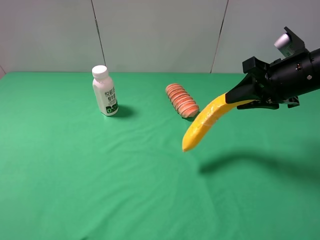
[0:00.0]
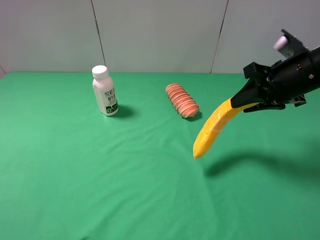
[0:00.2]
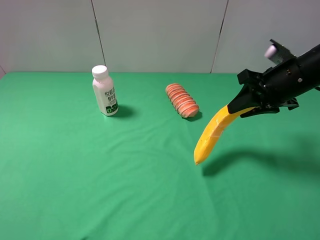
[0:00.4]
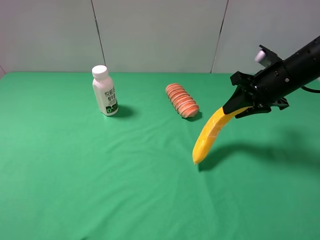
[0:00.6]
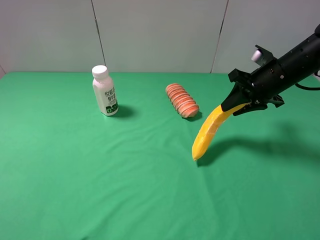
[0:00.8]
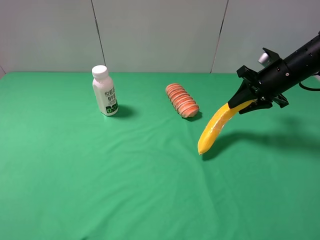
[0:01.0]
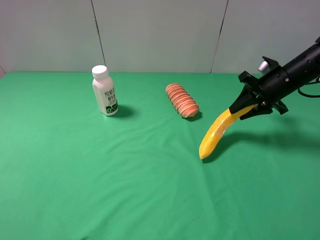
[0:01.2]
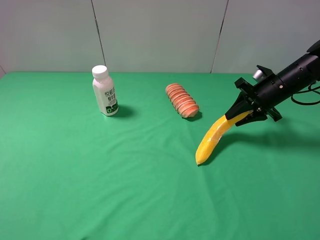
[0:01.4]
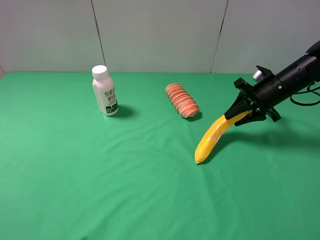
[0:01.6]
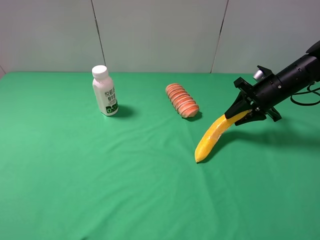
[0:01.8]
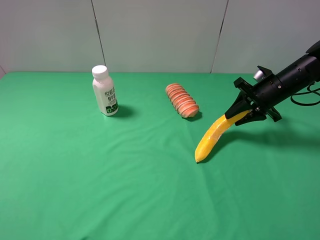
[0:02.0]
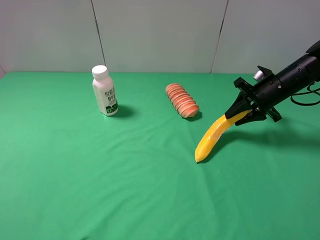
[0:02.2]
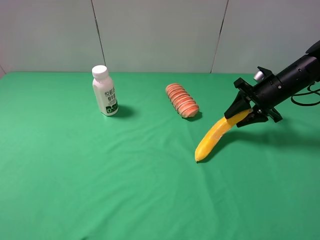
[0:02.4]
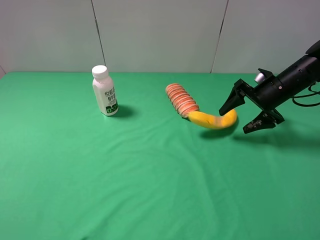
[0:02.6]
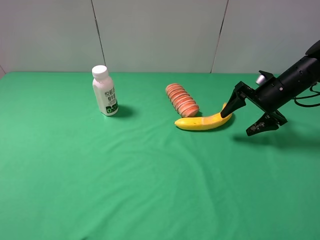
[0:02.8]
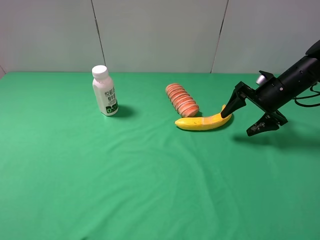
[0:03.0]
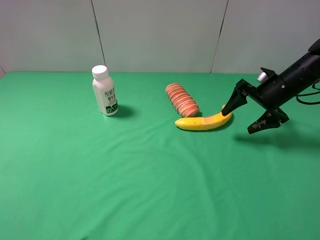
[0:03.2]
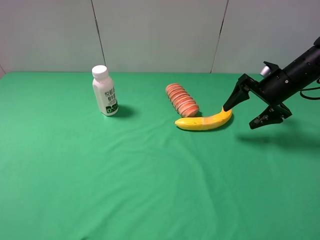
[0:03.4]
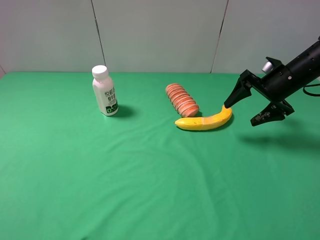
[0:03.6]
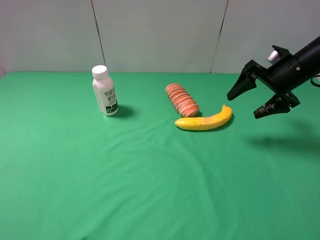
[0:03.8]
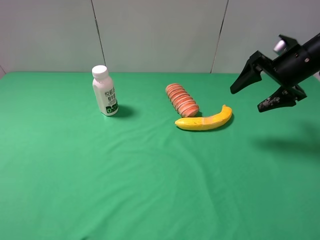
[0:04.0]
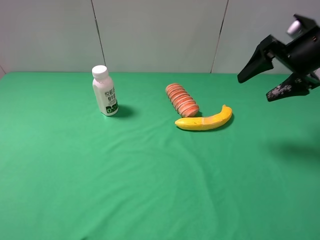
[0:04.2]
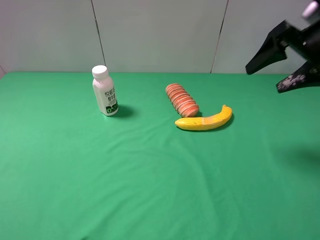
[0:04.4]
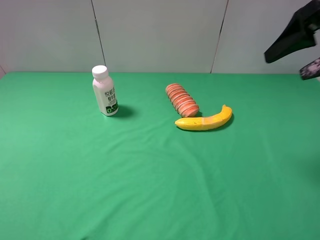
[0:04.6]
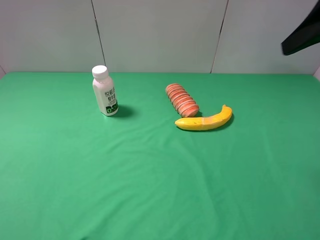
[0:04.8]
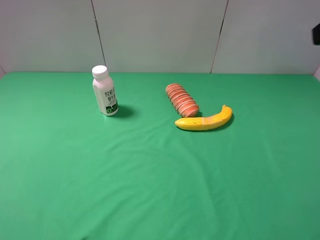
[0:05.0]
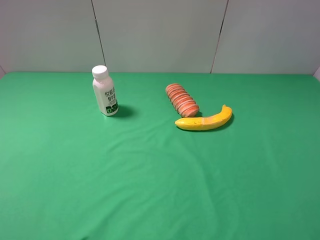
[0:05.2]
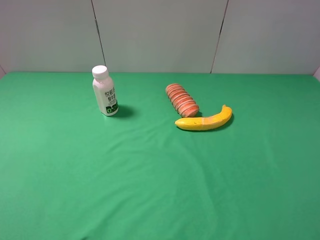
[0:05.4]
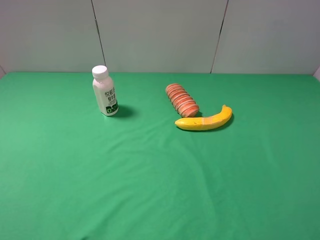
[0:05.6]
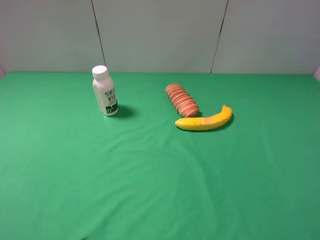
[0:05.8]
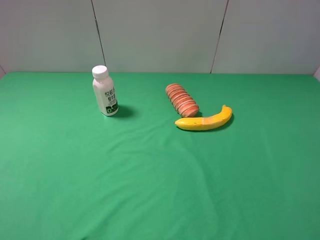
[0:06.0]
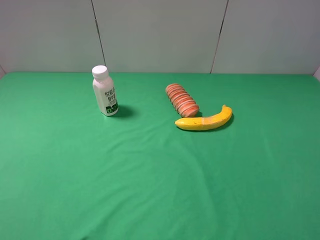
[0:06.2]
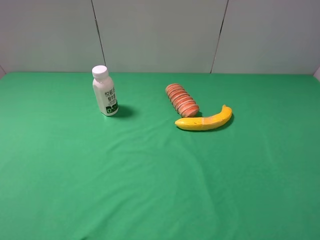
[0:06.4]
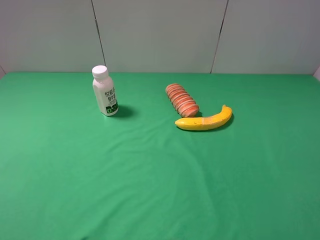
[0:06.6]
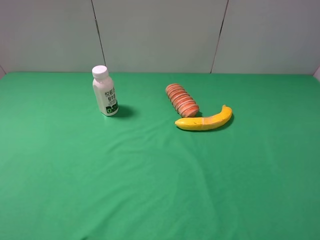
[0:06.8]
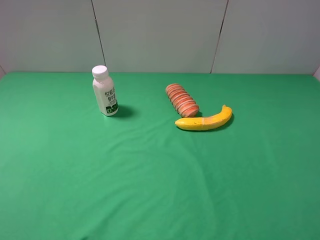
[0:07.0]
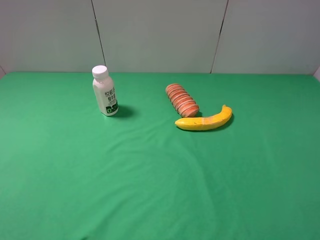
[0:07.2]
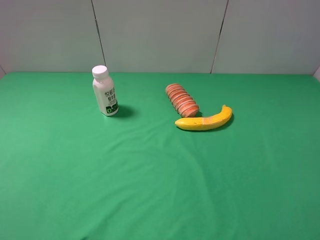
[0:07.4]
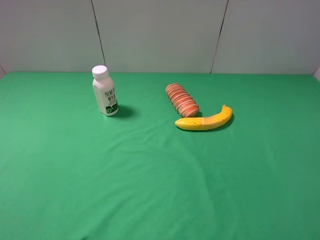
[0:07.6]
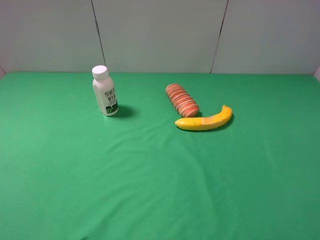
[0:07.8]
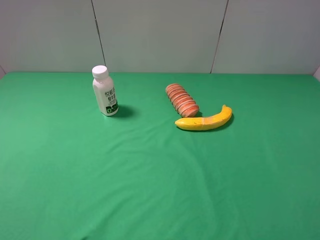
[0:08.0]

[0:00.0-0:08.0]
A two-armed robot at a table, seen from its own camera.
Task of the whole recording: use the left gripper to pick up the item and transfer it from the left gripper to the right gripper.
Step, 0:00.0 to 0:03.4: The right gripper places banana on the right side of the table.
0:00.0 to 0:01.6: The right gripper is displaced forward and downward by roughly 15 cm.
0:01.6 to 0:03.2: The right gripper opens its fingers.
0:03.2 to 0:04.8: The right gripper is displaced upward and backward by some 25 cm.
0:04.8 to 0:06.4: The right gripper shifts some 25 cm backward and downward.

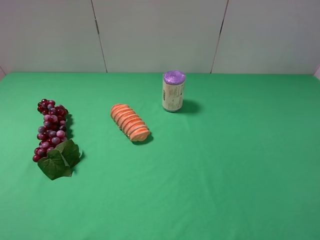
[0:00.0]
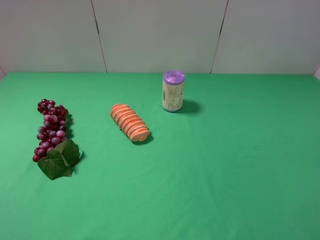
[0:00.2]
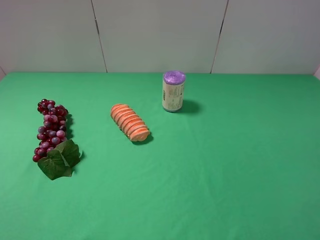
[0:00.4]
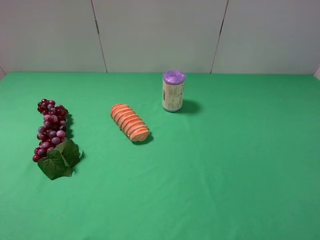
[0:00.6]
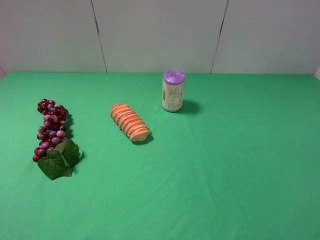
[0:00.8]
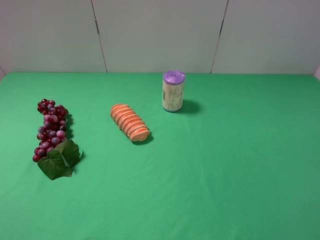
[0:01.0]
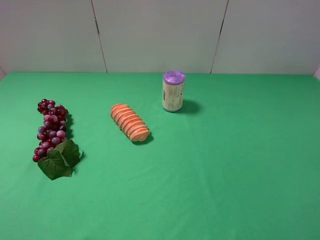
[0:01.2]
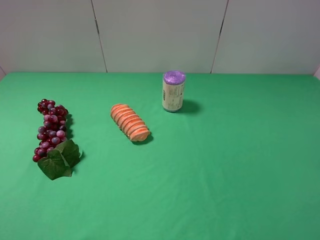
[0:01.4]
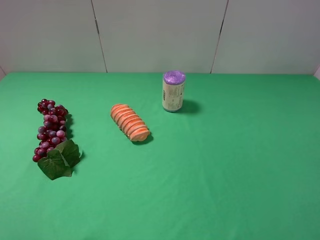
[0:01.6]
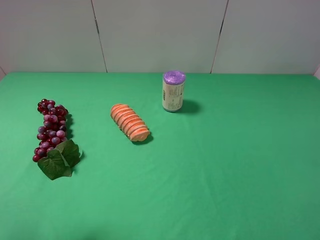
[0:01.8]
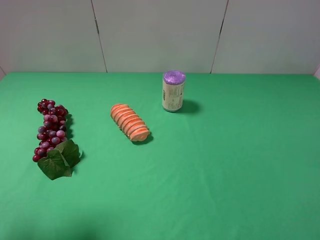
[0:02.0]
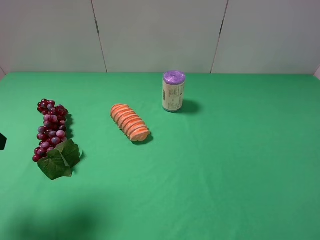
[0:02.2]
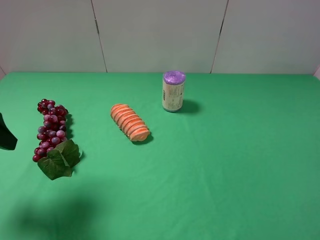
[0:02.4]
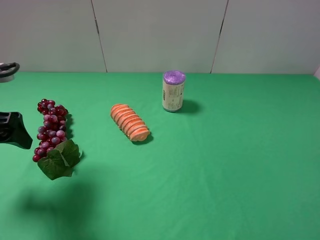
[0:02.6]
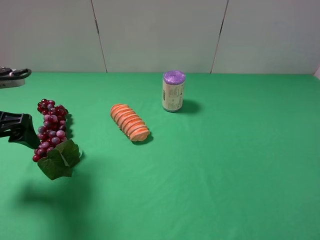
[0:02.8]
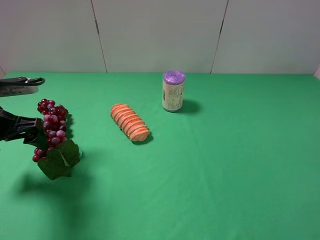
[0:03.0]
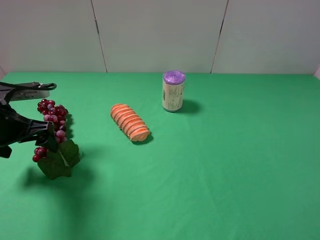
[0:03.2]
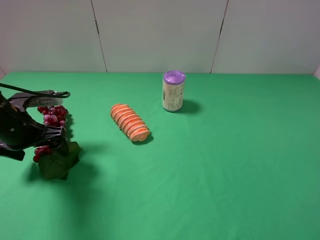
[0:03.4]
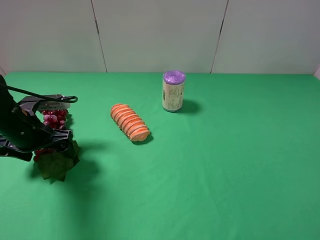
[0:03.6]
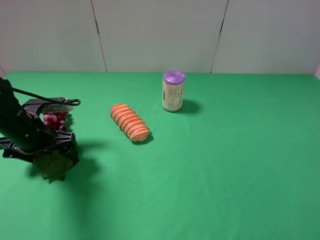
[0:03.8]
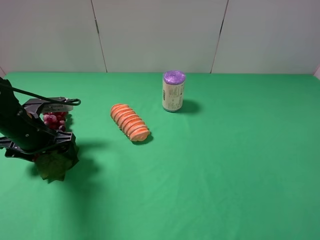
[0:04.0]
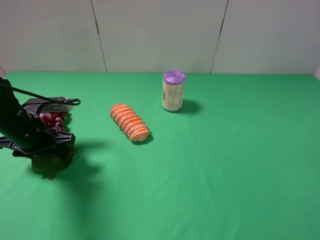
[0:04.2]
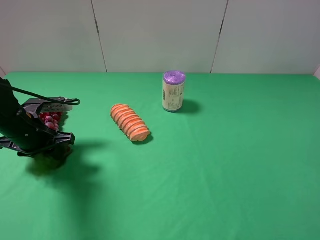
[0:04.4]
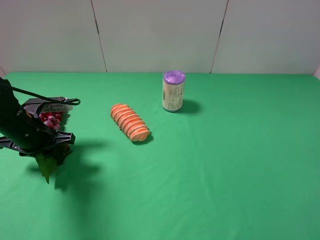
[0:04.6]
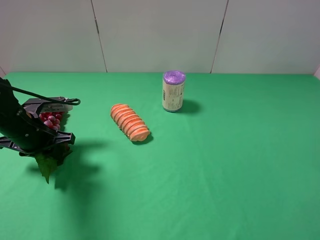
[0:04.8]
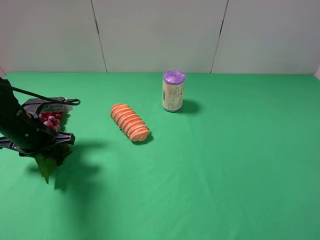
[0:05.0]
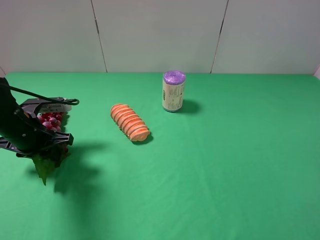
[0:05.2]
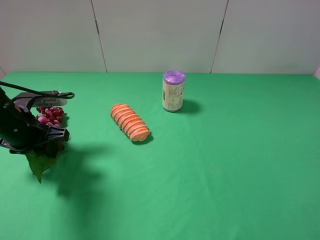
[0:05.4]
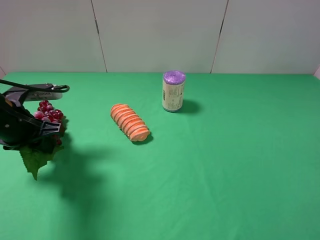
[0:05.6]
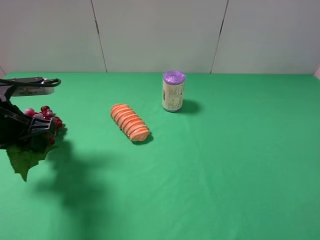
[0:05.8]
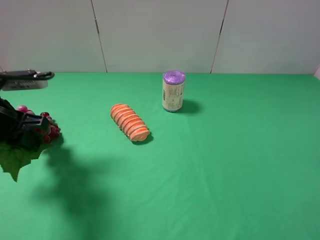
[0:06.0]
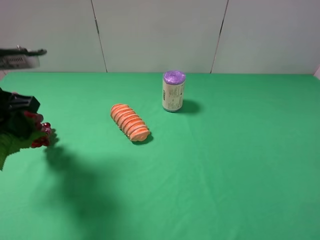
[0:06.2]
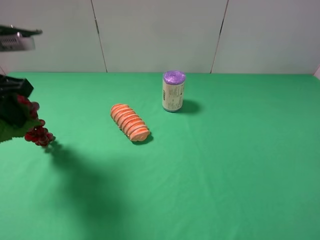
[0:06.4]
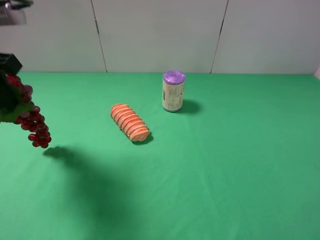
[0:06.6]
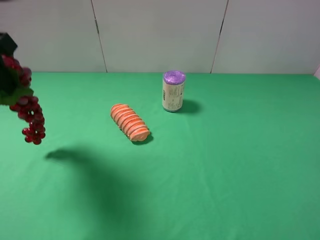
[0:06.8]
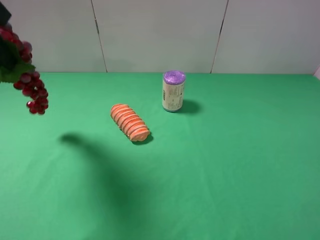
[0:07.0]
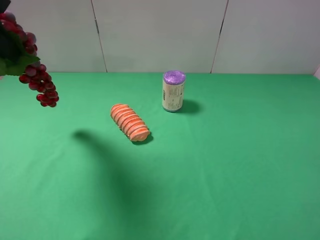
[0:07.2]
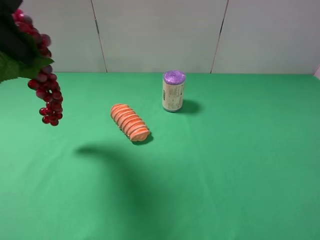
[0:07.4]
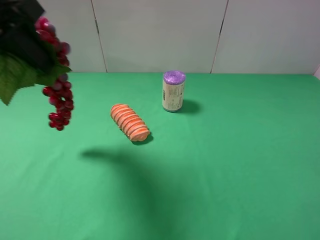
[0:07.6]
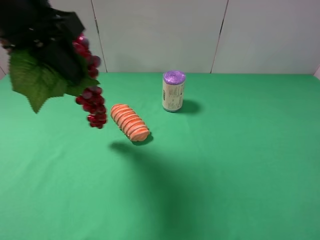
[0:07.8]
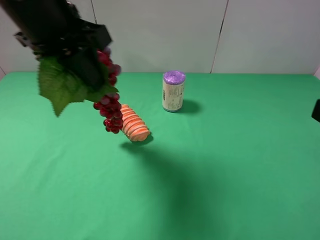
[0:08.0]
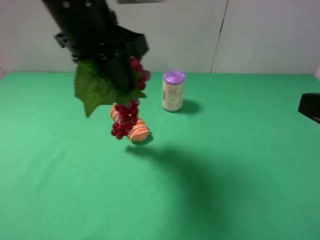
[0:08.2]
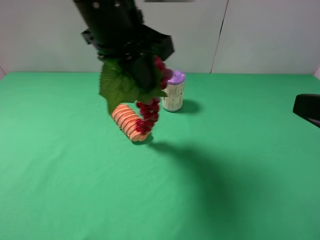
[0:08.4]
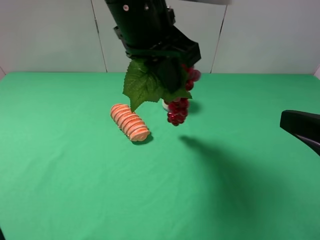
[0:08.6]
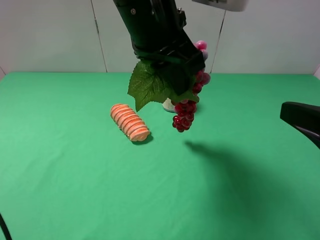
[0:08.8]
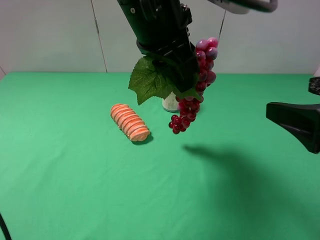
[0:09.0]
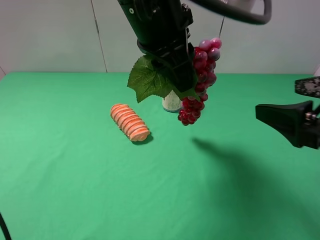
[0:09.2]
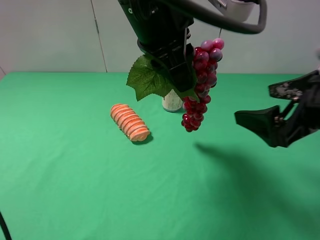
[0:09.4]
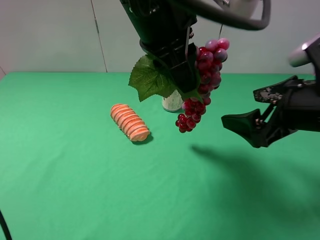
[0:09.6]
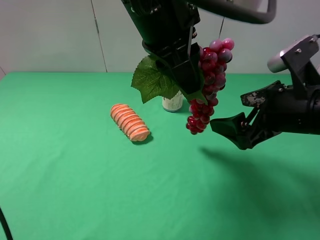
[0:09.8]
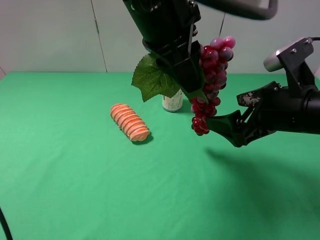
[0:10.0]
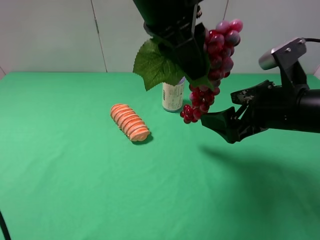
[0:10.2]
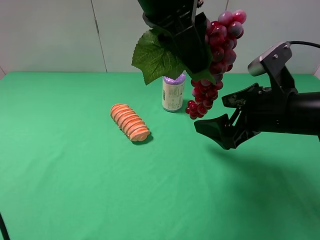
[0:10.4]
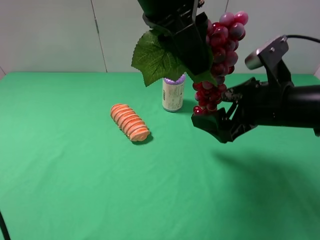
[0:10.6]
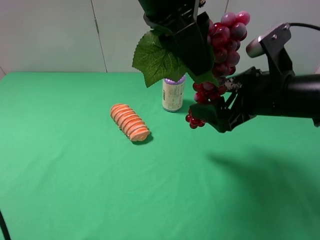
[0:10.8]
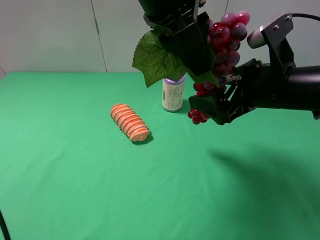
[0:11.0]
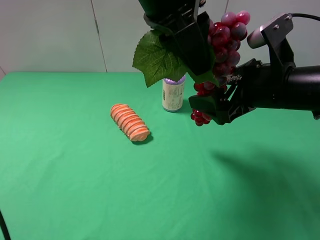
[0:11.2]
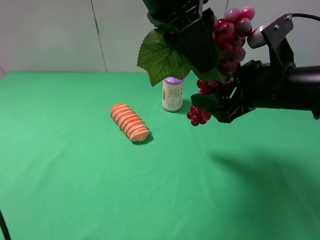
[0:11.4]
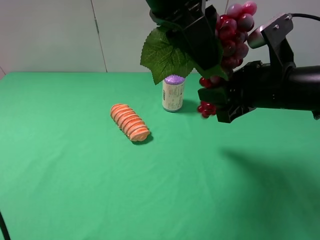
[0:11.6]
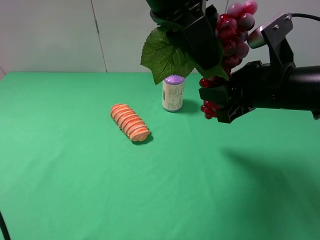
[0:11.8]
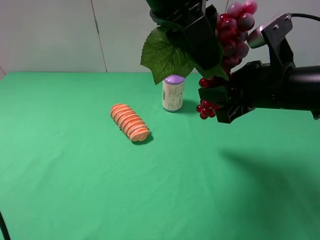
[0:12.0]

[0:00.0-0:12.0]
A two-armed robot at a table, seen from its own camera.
Task of the whole recording: use the left gripper to pick up the item and transfer it from the left gripper to the right gripper.
Step, 0:00.0 to 0:04.2: Use the left gripper to grab the grape on the left side of the table.
0:01.6 to 0:03.0: The left gripper travels forward and downward by some 20 cm.
0:03.0 to 0:04.4: The left gripper is displaced downward by about 5 cm, and closes its fingers.
0:04.4 to 0:06.0: The left gripper shifts some 10 cm upward.
0:06.0 to 0:07.6: The left gripper heads upward and to the right, covering roughly 15 cm.
0:07.6 to 0:09.0: The right gripper shifts some 10 cm forward. The left gripper is displaced to the right by roughly 20 cm.
0:09.0 to 0:10.4: The right gripper heads forward, downward and to the left, covering some 15 cm.
0:10.4 to 0:12.0: The right gripper closes its fingers.

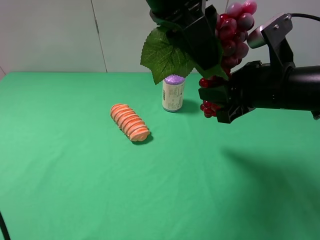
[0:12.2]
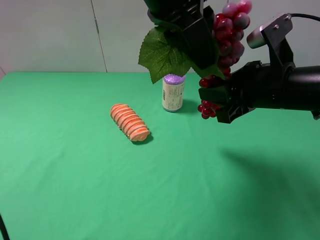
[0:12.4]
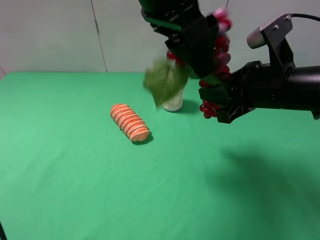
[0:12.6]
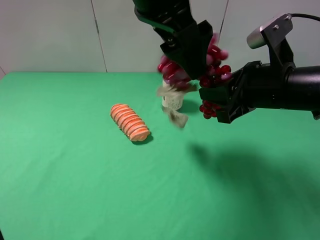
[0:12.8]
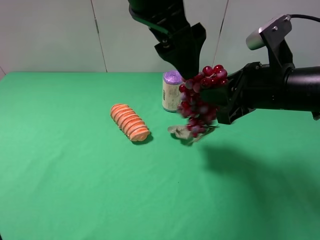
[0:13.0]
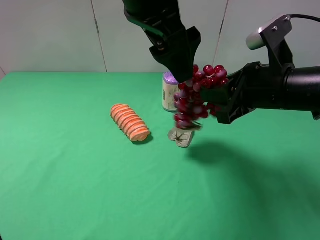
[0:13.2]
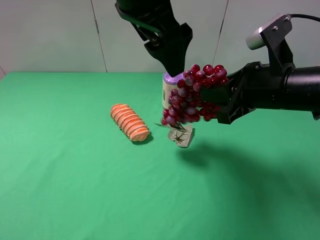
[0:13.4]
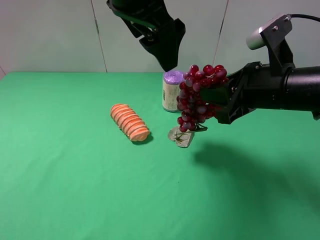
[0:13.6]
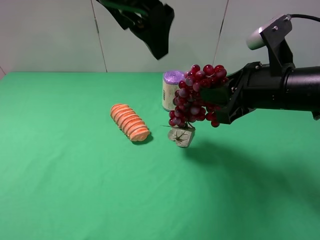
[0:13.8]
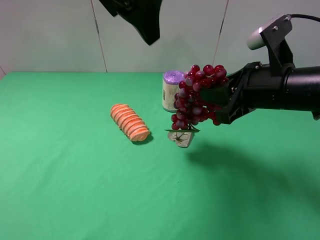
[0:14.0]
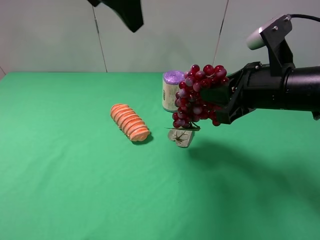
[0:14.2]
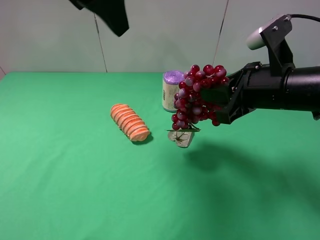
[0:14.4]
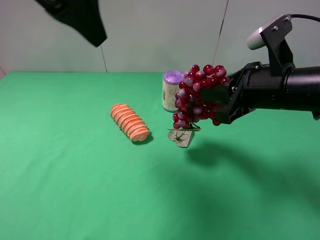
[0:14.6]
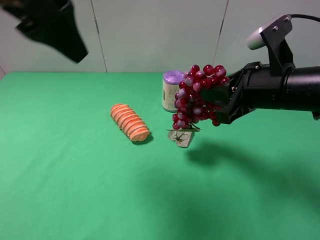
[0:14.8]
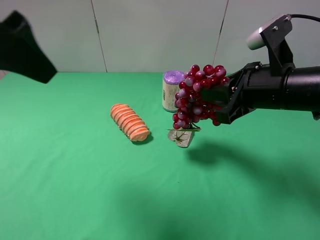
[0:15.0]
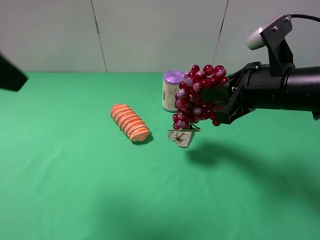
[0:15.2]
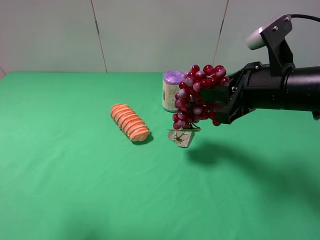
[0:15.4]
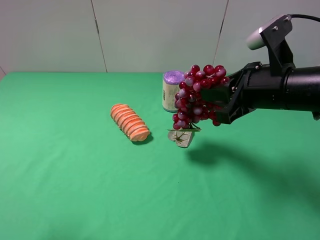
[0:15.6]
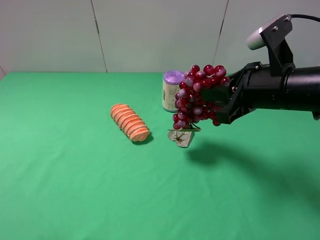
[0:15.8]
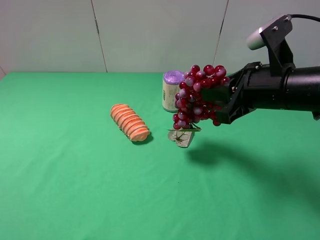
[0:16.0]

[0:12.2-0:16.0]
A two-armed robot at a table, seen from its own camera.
Task of the whole recording: use the left gripper to pick up the item and transfer it from the left gripper to the right gripper.
0:12.2 to 0:13.4: The left gripper opens its fingers.
0:13.4 to 0:14.8: The left gripper shifts approximately 15 cm to the left and backward.
0:14.8 to 0:16.0: The left gripper is displaced backward, to the left and downward by some 25 cm.
